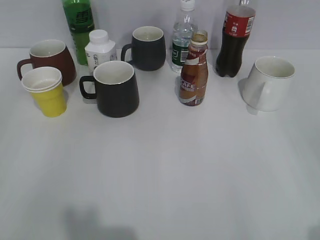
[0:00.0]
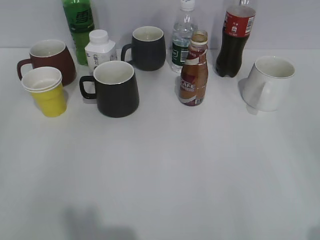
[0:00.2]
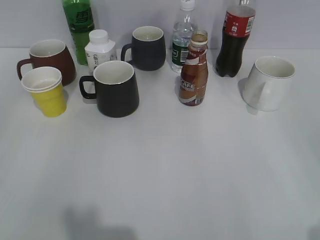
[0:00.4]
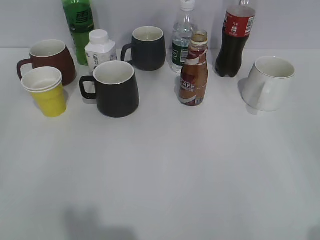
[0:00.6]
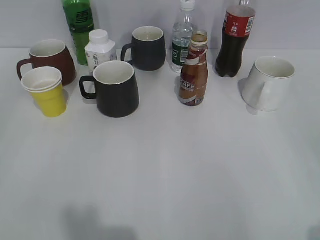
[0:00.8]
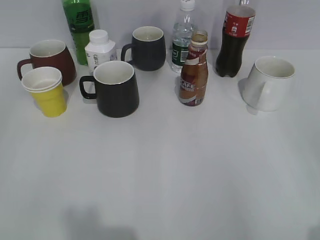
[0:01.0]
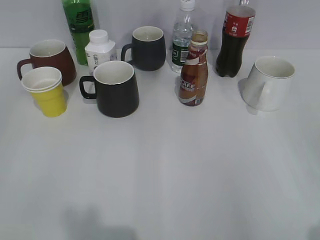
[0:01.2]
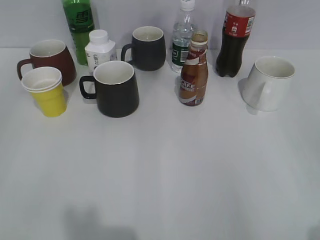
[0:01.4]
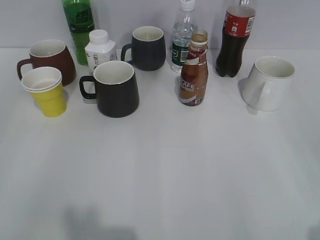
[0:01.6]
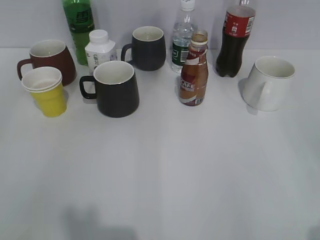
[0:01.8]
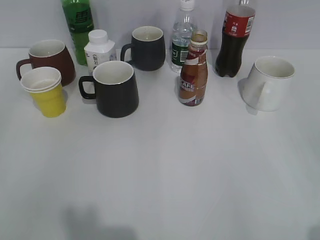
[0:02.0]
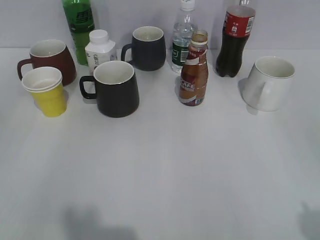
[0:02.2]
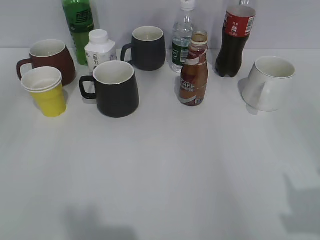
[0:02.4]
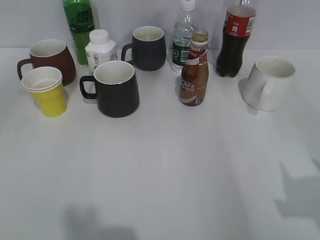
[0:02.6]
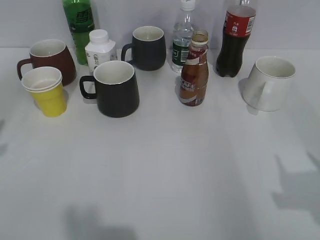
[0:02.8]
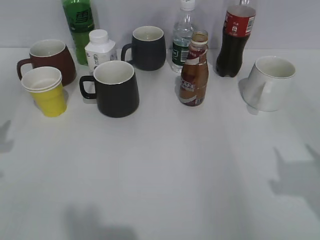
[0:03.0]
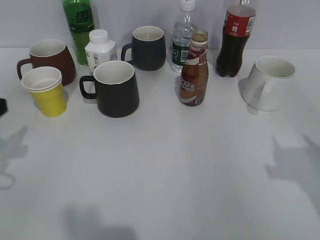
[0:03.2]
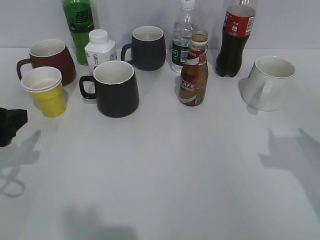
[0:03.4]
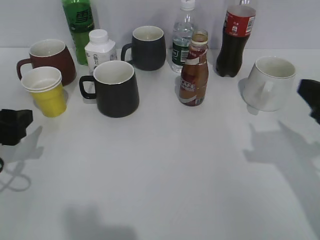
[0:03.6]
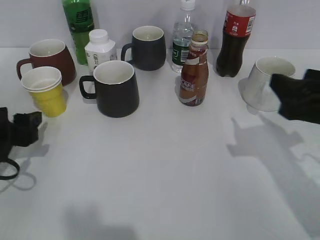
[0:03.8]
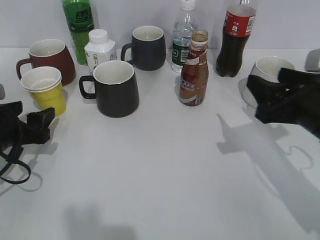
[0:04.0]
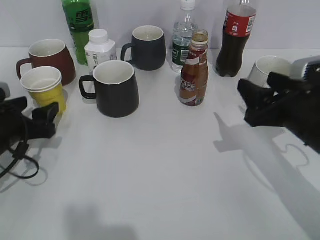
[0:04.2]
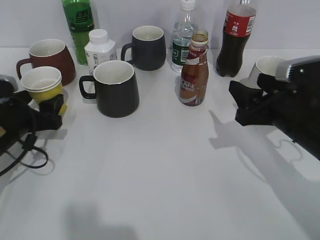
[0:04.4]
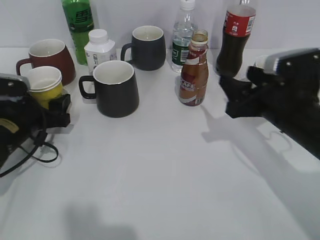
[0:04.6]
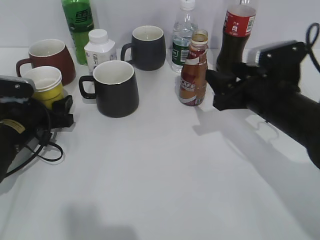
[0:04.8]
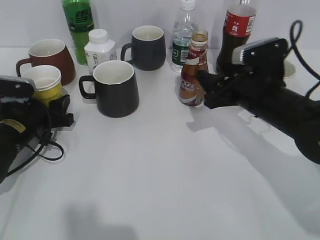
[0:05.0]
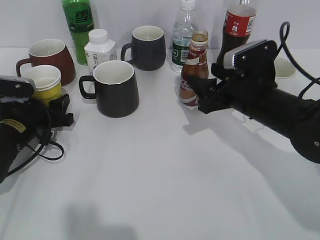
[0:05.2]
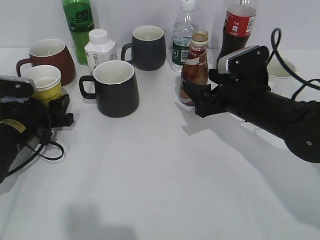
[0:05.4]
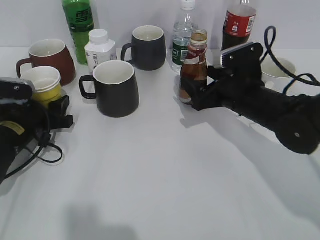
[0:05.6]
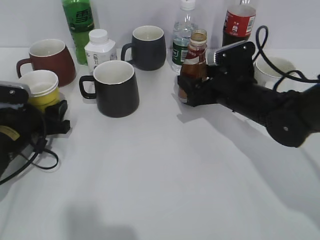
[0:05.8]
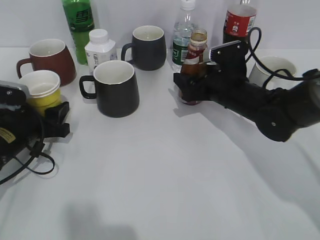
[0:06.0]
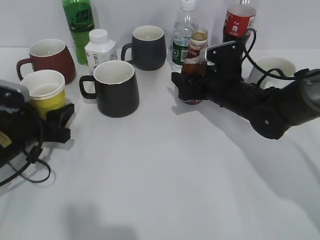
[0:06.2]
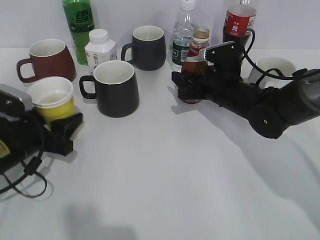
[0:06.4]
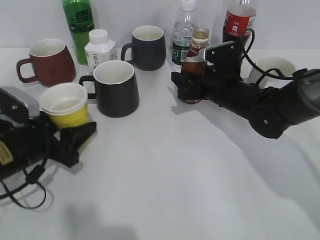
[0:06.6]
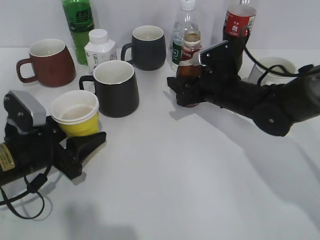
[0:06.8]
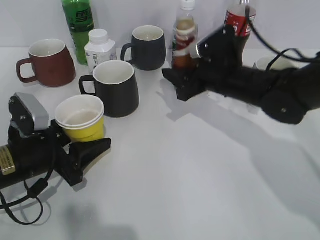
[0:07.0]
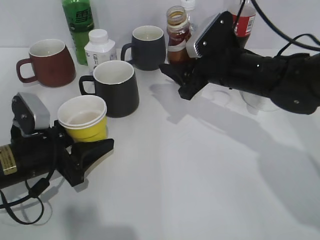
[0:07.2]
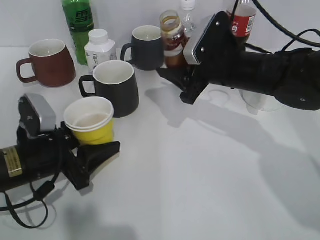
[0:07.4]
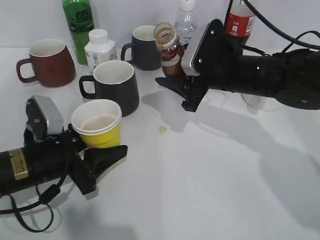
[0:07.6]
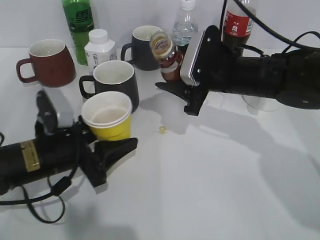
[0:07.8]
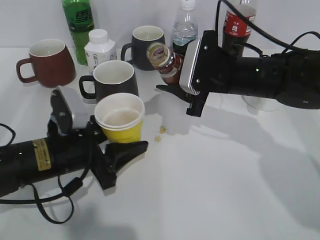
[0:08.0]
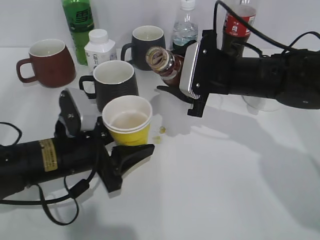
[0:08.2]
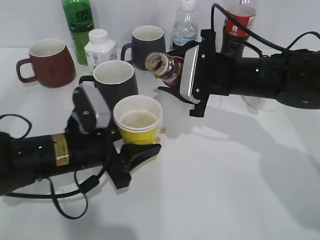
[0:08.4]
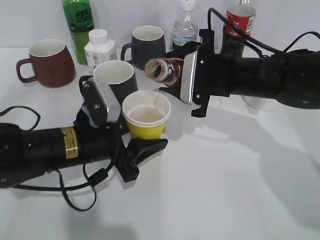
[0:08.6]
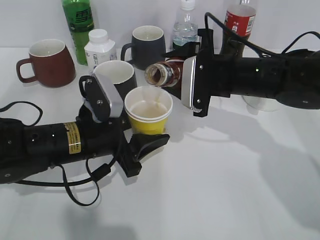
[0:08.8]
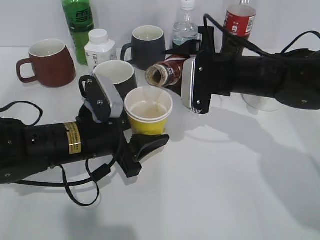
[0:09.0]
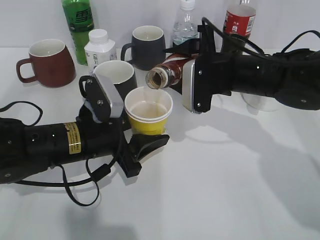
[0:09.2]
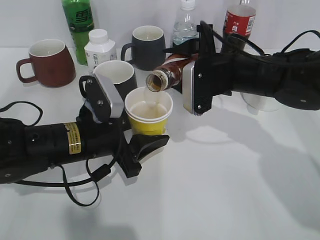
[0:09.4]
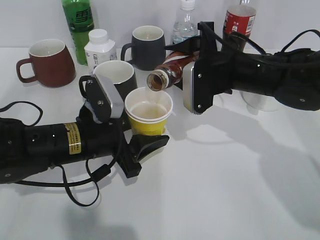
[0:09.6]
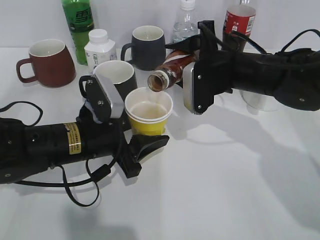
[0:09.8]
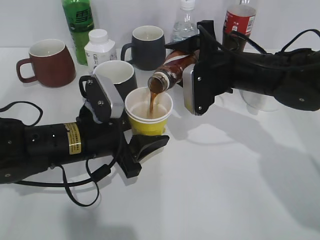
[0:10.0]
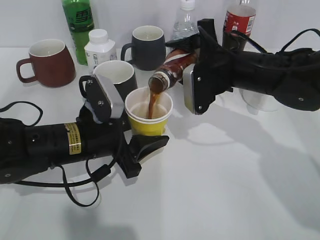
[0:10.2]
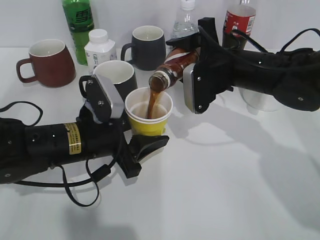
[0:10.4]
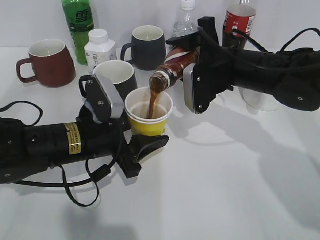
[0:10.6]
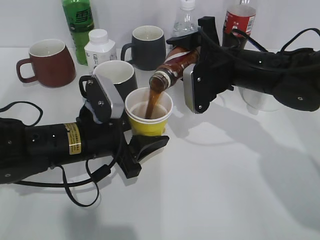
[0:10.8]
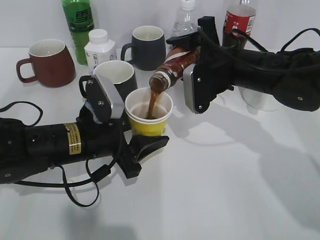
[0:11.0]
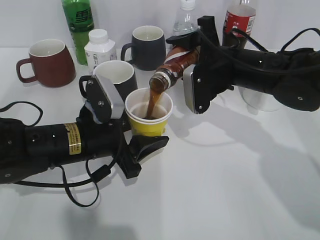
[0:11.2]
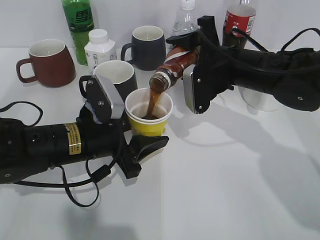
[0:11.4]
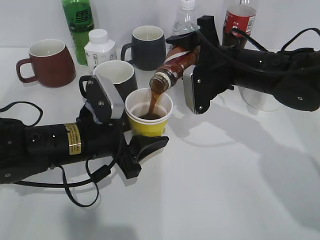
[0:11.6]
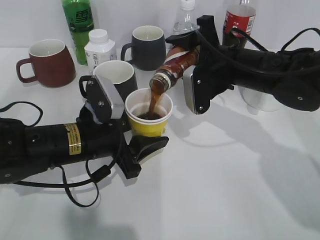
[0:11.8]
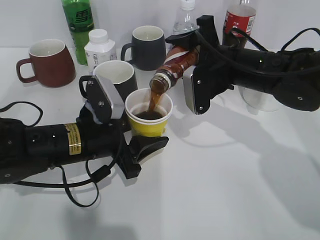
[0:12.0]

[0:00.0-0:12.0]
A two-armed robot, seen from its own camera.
Step, 0:01.8 to 0:05.4: Grasp the yellow paper cup with left gripper.
Step, 0:05.6 to 0:06.4: Grasp the bottle with coffee with right gripper.
0:01.6 to 0:03.0: The right gripper heads forward, covering approximately 10 cm.
0:03.0 to 0:04.4: The right gripper shifts some 20 cm forward, downward and to the left. The left gripper heads downward, forward and to the right, covering approximately 15 cm.
0:04.4 to 0:06.0: The right gripper goes roughly 15 cm forward and to the left, and opens its fingers; the left gripper closes its fingers.
0:06.0 to 0:07.6: The right gripper heads upward, covering about 5 cm, and closes, while the left gripper travels backward and to the right by some 10 cm.
0:07.6 to 0:09.0: The left gripper is displaced to the right by roughly 5 cm.
0:10.4 to 0:12.0: The grippers move only a little.

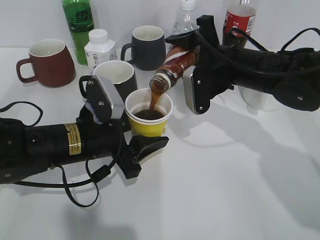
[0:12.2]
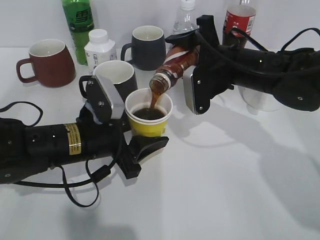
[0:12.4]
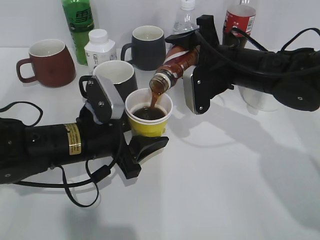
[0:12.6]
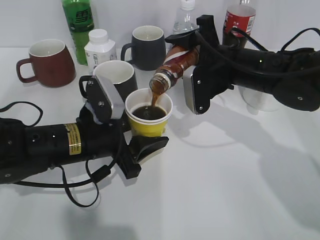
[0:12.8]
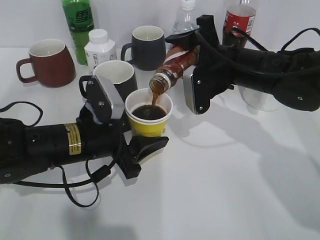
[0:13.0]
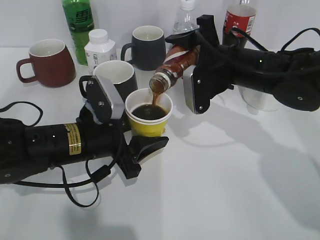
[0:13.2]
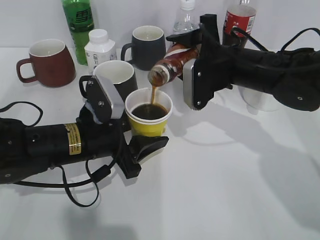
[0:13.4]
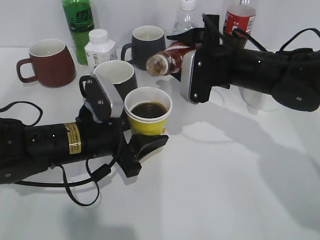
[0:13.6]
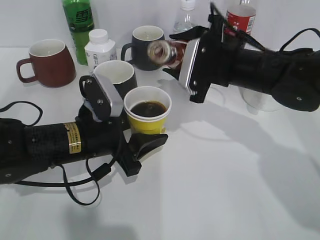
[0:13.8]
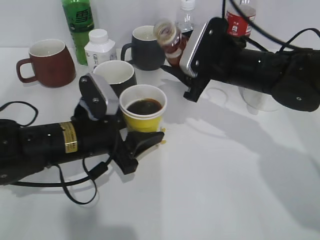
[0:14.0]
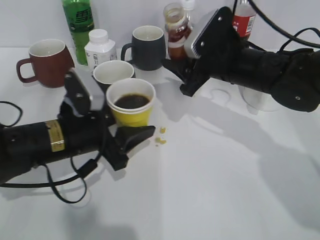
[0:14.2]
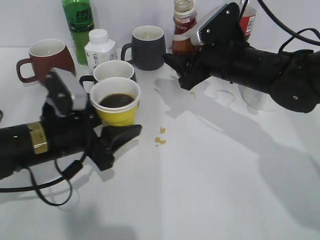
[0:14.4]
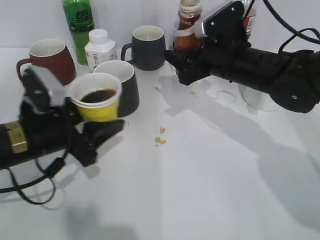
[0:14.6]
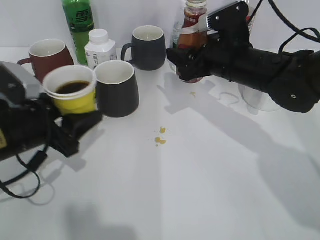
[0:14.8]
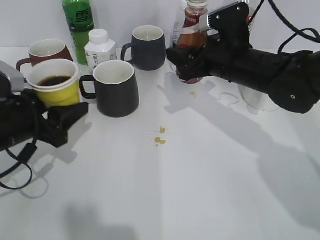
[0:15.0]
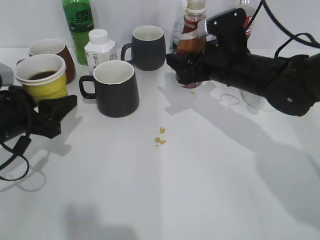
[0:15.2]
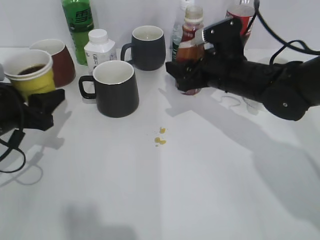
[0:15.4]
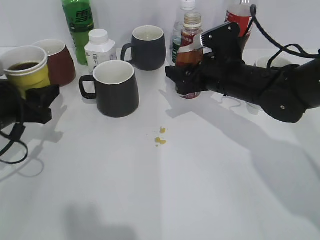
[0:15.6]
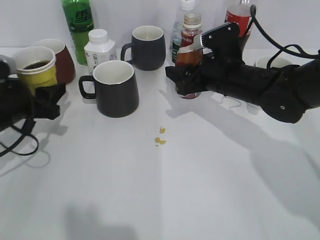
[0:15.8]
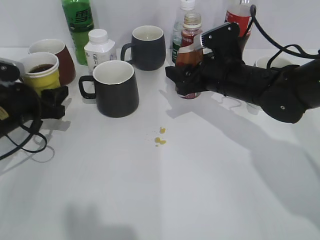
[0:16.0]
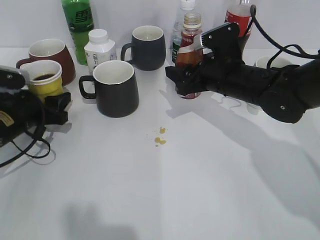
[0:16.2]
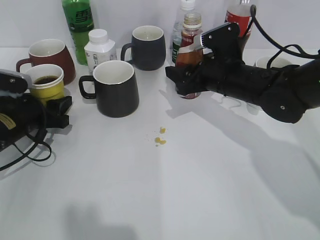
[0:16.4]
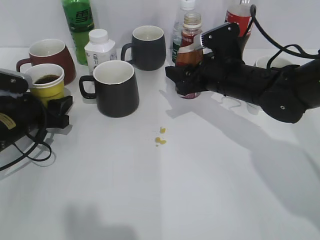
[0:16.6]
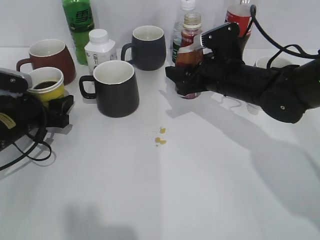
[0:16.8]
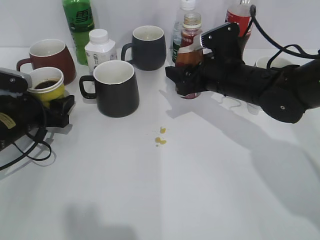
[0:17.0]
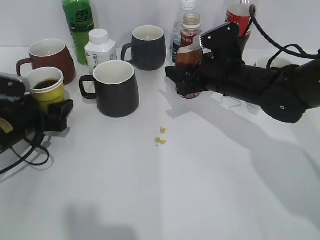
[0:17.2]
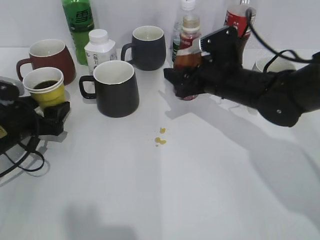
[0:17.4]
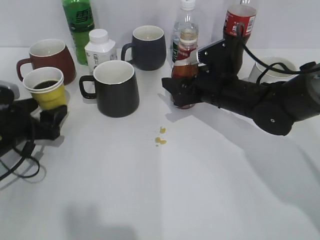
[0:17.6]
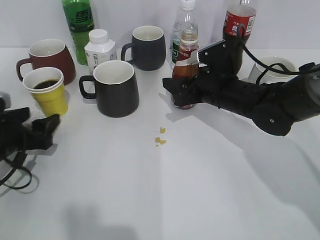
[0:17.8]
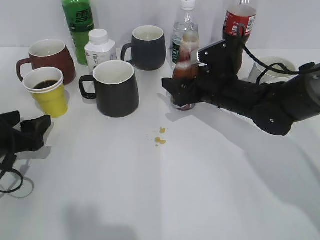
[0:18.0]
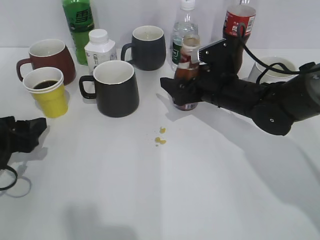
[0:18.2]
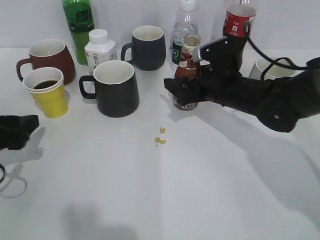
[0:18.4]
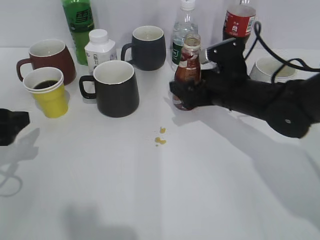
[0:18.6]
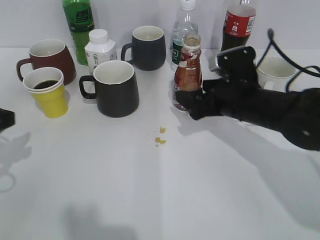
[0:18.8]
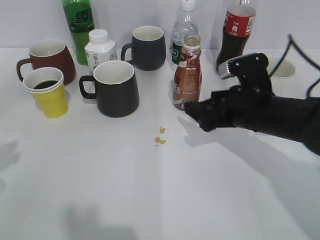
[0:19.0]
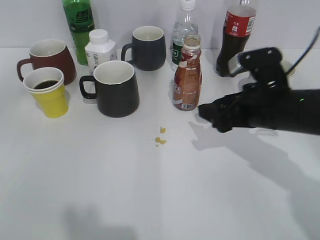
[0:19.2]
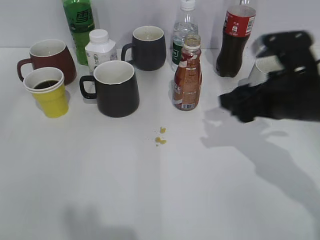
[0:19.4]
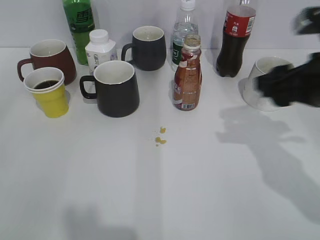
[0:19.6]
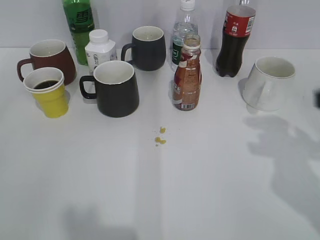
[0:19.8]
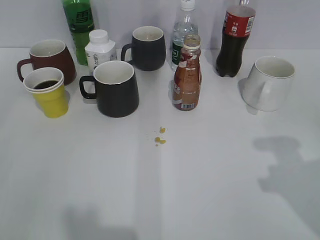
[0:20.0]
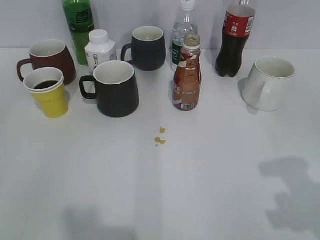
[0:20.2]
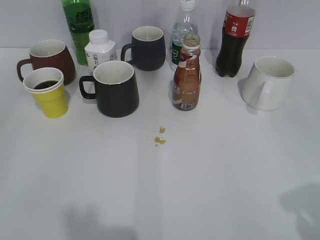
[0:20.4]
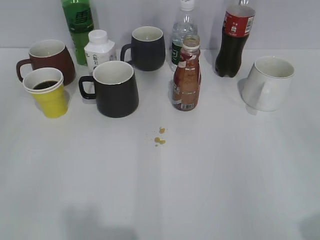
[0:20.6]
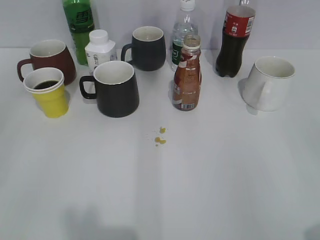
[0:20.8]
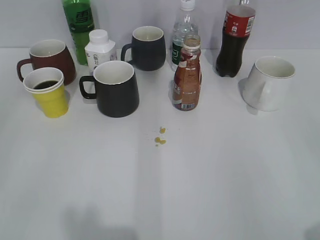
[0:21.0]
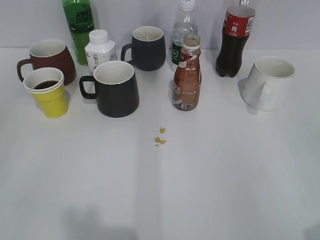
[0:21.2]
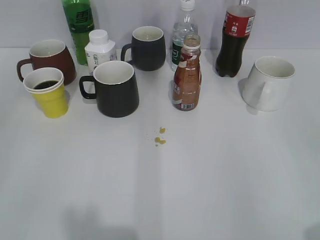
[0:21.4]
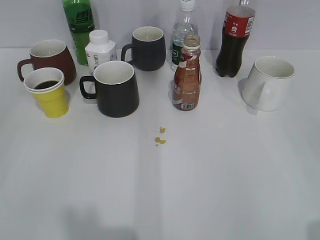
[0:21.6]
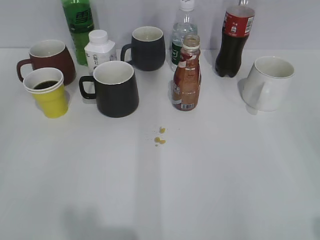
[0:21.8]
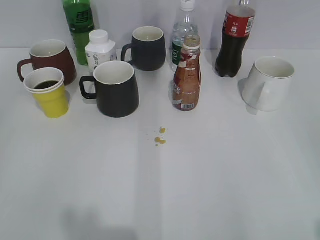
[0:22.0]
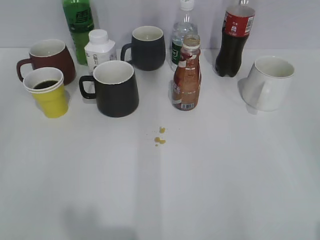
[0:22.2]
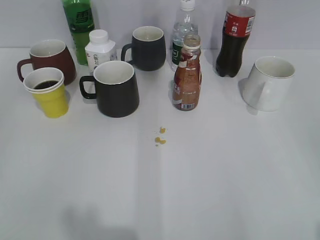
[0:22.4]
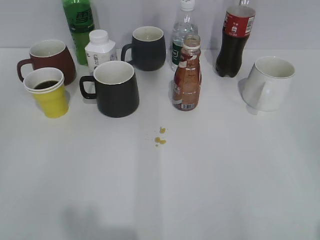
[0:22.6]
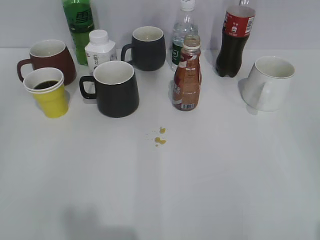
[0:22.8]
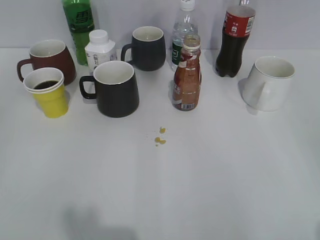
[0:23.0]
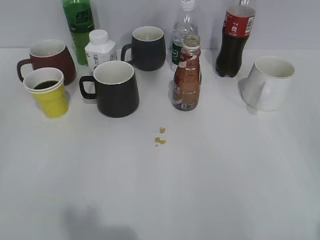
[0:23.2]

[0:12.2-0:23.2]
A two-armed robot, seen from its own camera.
Step, 0:14.0 to 0:17.2: Place the yellow paper cup on the table with left gripper.
Step, 0:17.4 to 0:18.8: Place the coffee bottle on the table with right gripper.
0:13.8 to 0:15.4: The left gripper travels to the left by approximately 15 cm.
0:15.4 to 0:17.0: The left gripper shifts about 10 cm forward and downward.
0:17.0 to 0:18.4: The left gripper goes approximately 10 cm backward, while the right gripper opens.
0:18.4 to 0:20.0: The left gripper travels backward and upward by about 25 cm; the right gripper shifts some 25 cm backward, upward and to the right, and closes its fingers.
0:20.0 to 0:21.6: The right gripper heads backward, covering about 15 cm.
